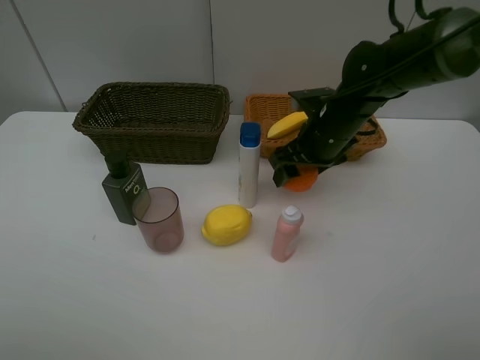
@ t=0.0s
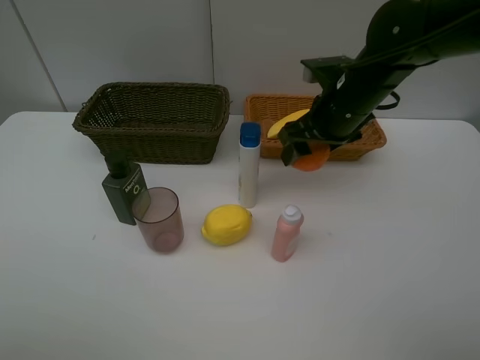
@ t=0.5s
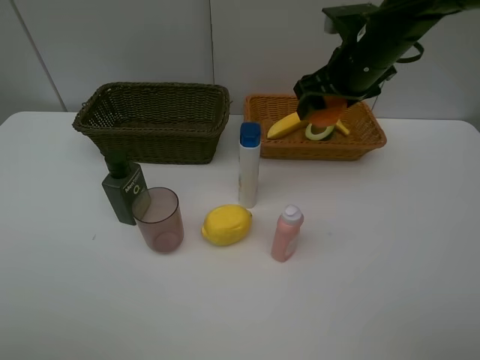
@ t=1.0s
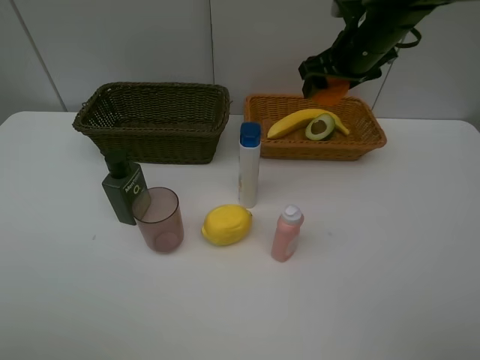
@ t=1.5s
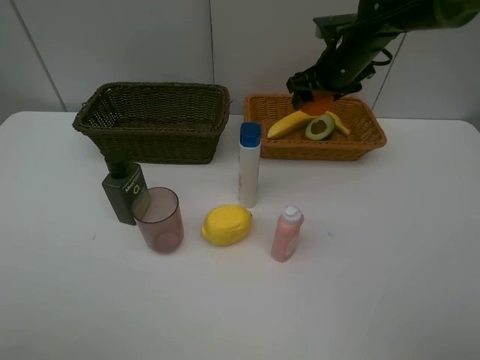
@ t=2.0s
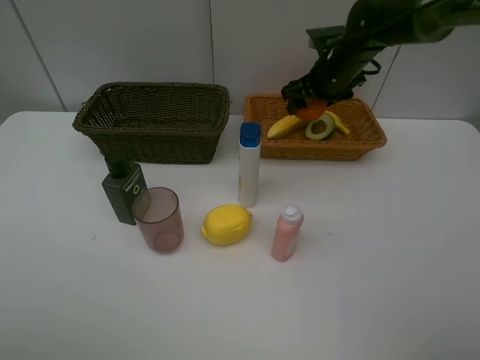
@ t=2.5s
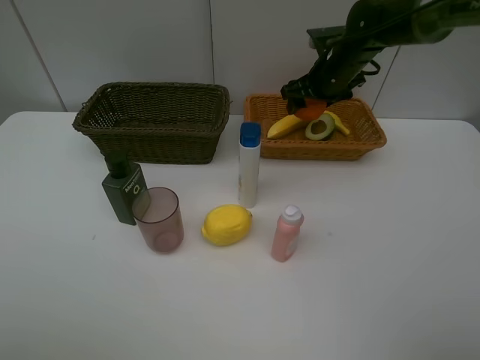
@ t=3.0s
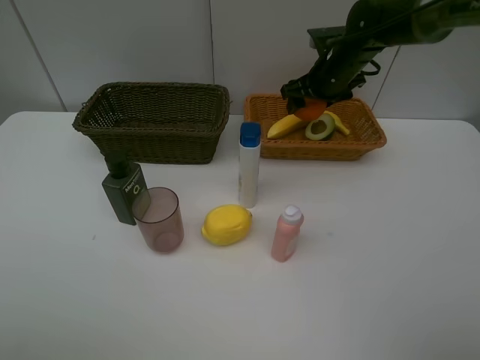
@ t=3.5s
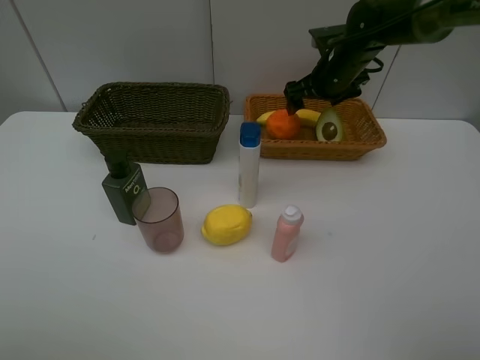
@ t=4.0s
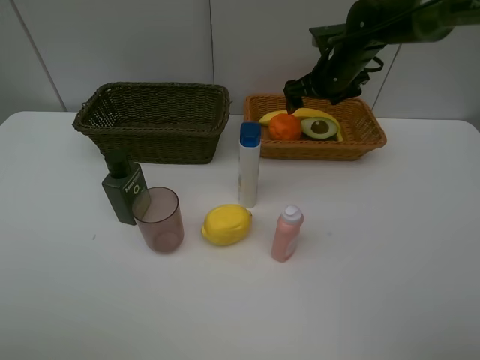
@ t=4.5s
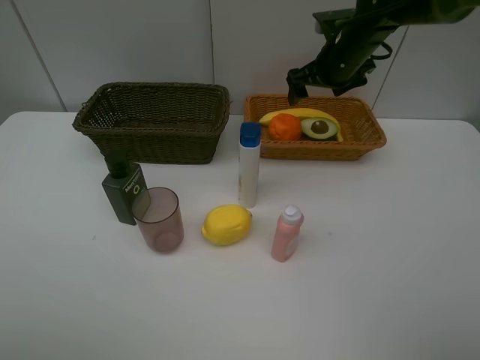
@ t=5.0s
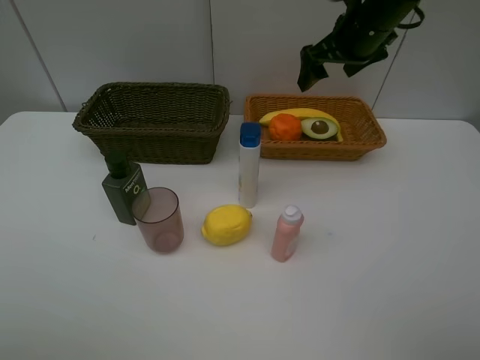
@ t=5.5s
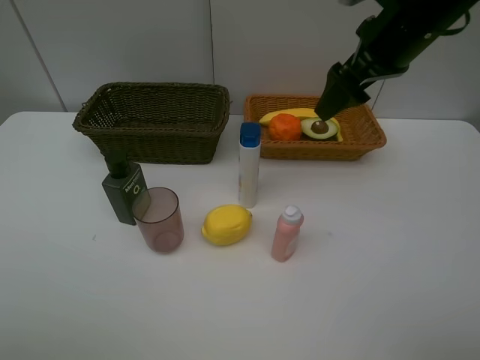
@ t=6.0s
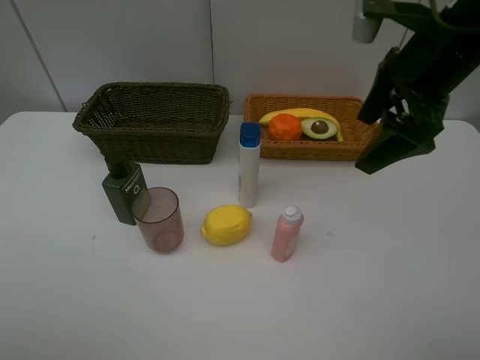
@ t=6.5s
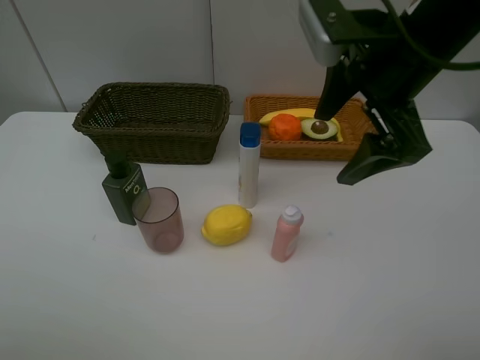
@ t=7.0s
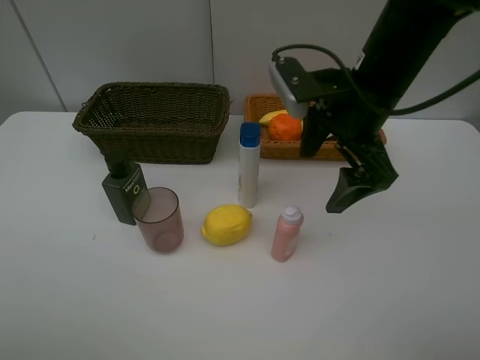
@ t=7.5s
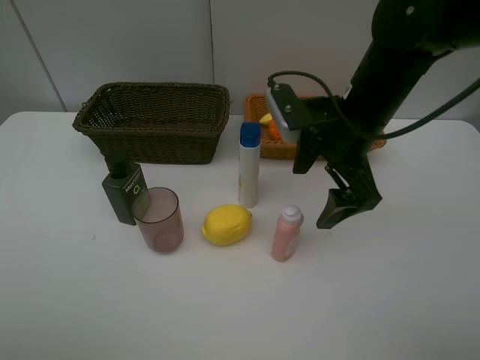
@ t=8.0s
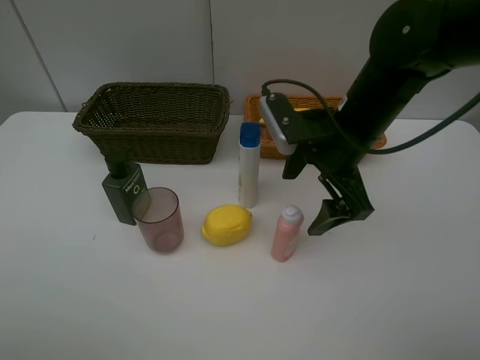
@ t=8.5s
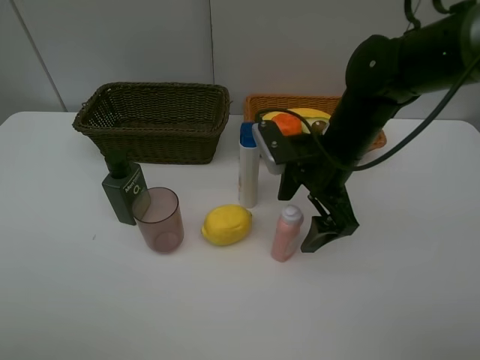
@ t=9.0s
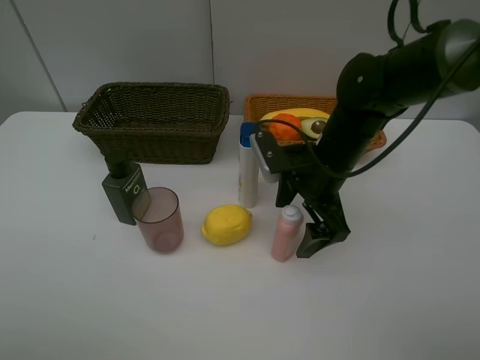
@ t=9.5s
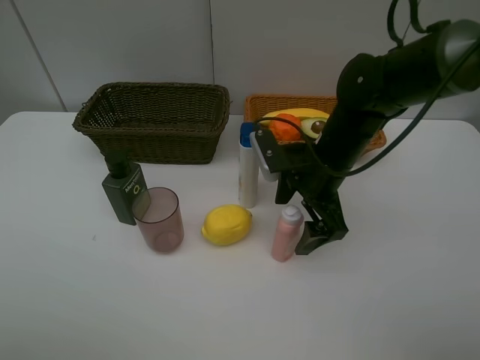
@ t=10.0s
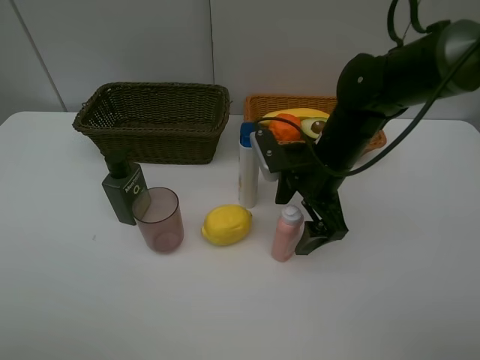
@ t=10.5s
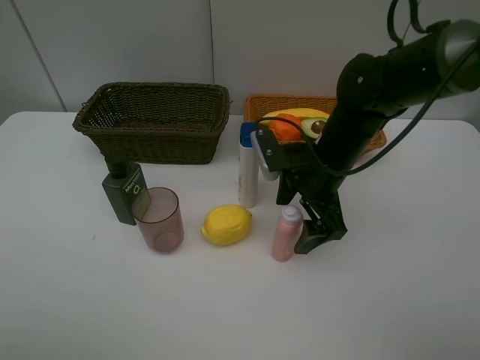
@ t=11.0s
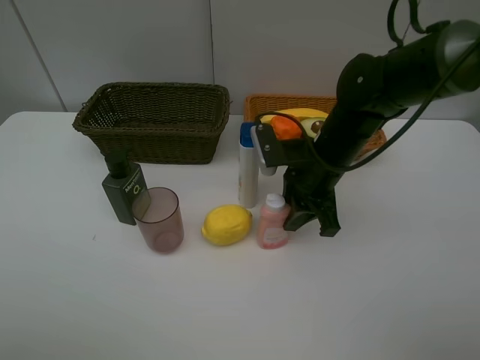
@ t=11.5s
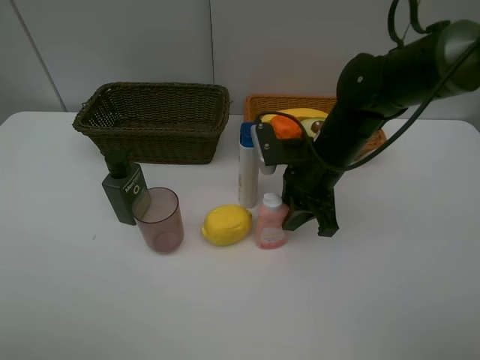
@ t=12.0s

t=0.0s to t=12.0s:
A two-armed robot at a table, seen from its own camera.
Task of the whole recording: Place multiple objects separately in different baskets.
Step, t=0.0s to t=4.0s: Place the orange in the light basket with right gripper.
t=0.0s to t=2.0s: The right gripper goes approximately 10 cm forward.
t=2.0s to t=4.0s: The right gripper opens up.
t=4.0s to t=6.0s: The right gripper travels backward and upward by approximately 20 cm.
t=6.0s to t=8.0s: The right gripper shifts approximately 10 cm downward and to the left.
t=8.0s to t=10.0s: The right gripper travels downward by roughly 5 cm.
t=10.0s to t=12.0s: The right gripper closes up.

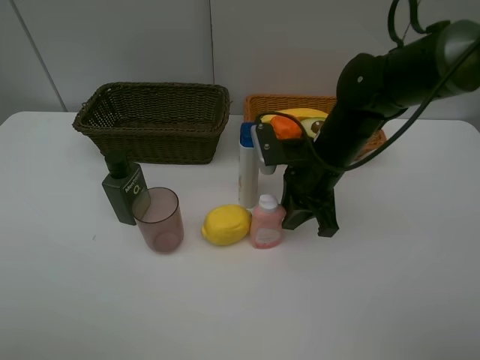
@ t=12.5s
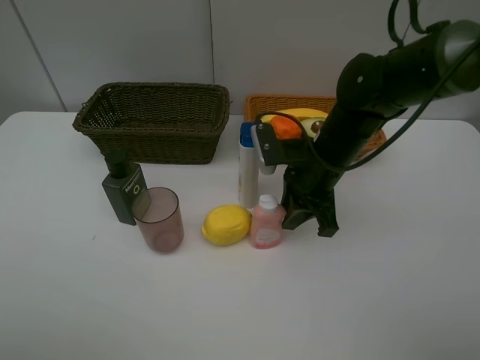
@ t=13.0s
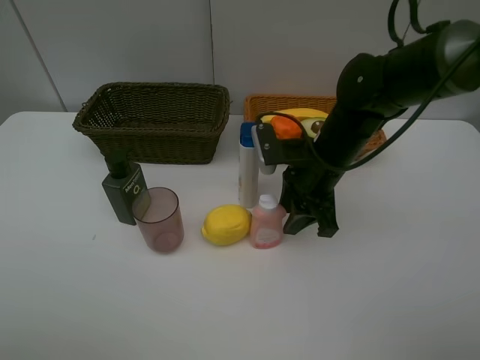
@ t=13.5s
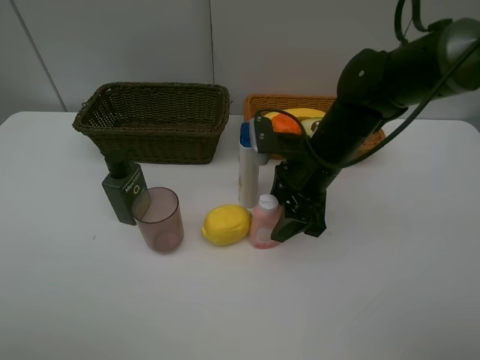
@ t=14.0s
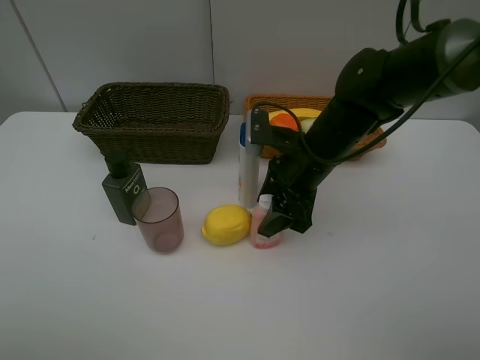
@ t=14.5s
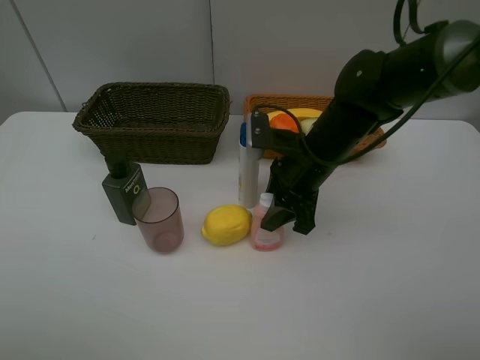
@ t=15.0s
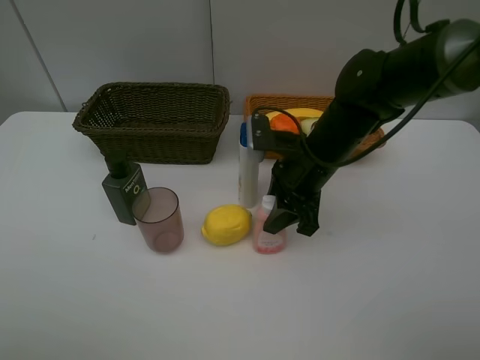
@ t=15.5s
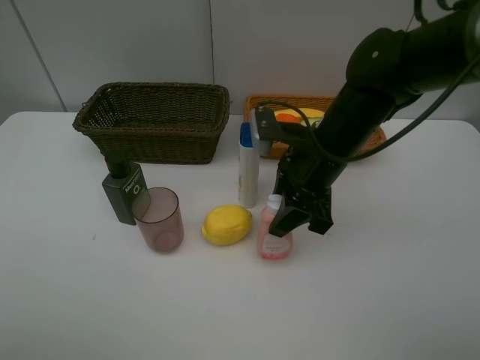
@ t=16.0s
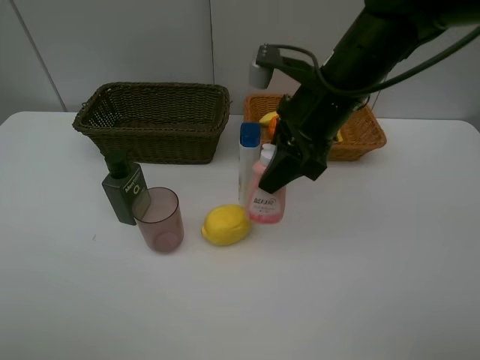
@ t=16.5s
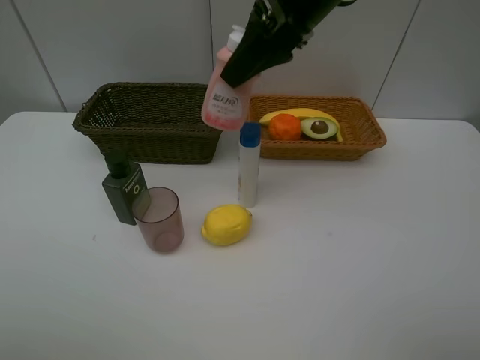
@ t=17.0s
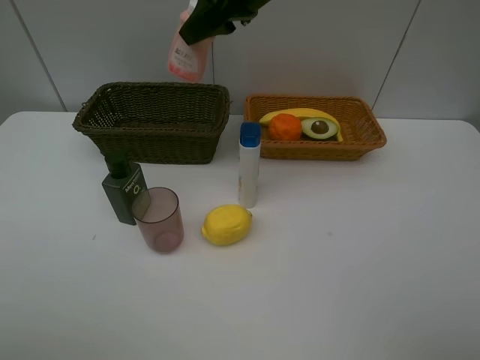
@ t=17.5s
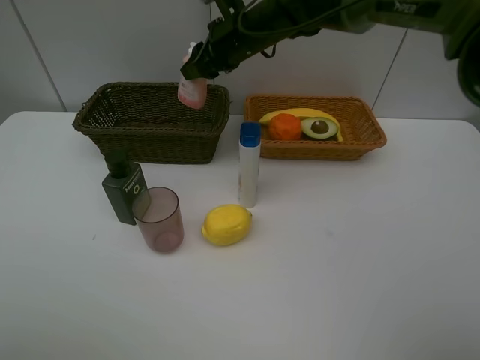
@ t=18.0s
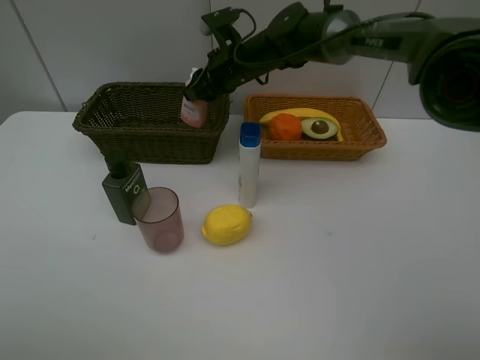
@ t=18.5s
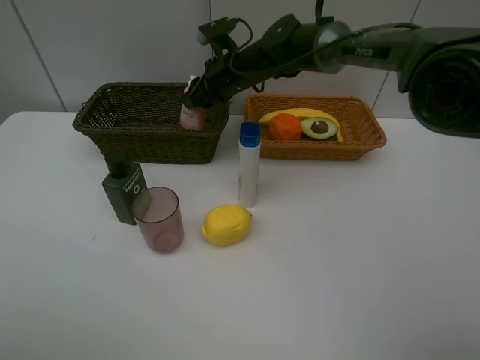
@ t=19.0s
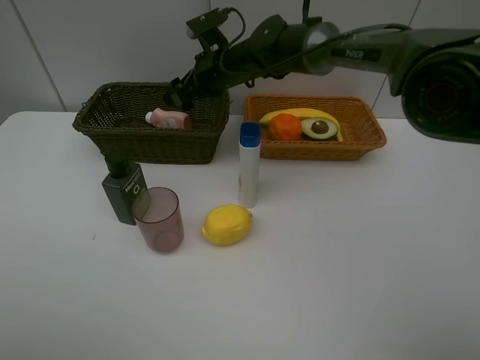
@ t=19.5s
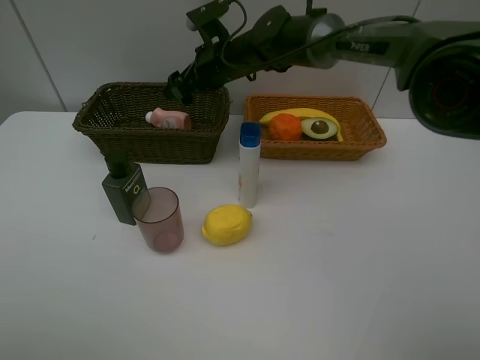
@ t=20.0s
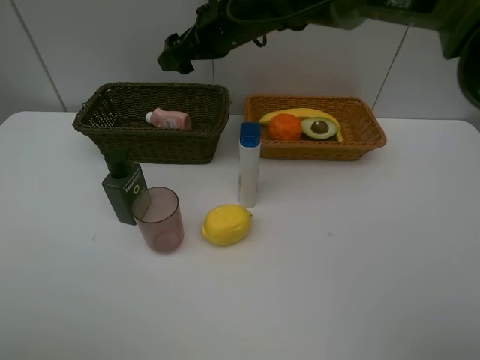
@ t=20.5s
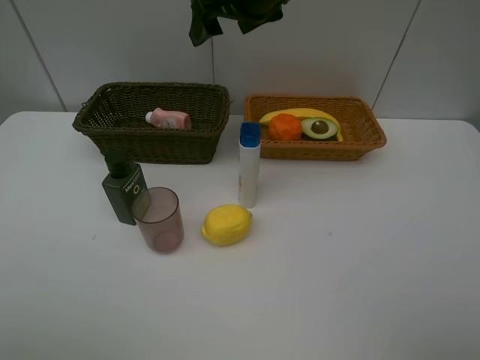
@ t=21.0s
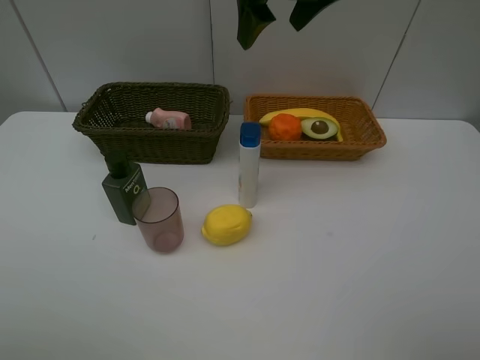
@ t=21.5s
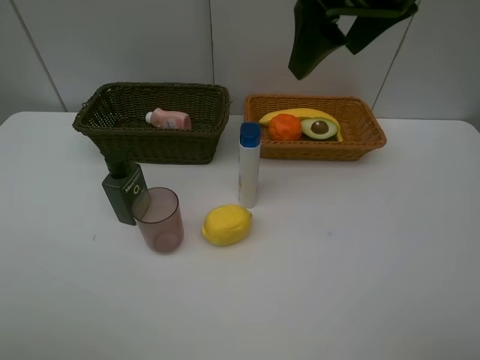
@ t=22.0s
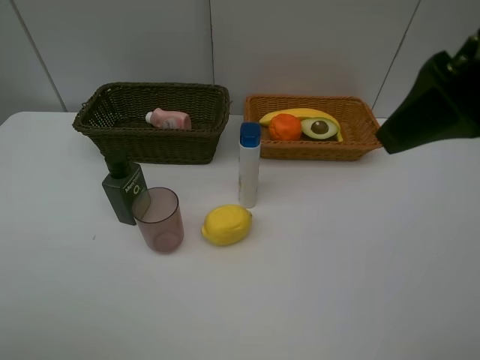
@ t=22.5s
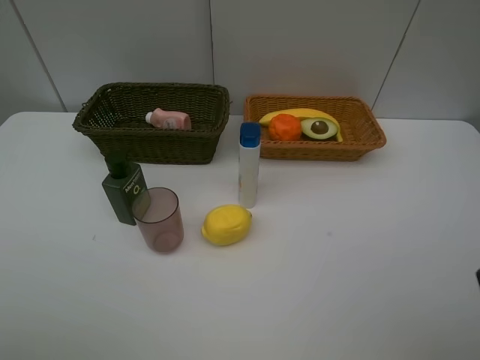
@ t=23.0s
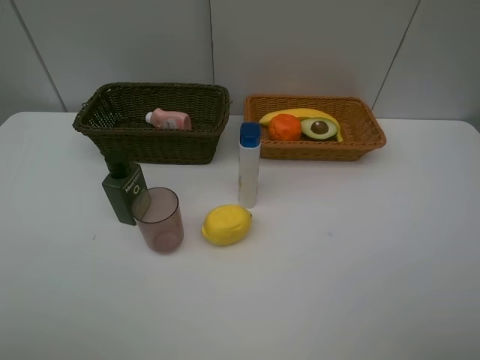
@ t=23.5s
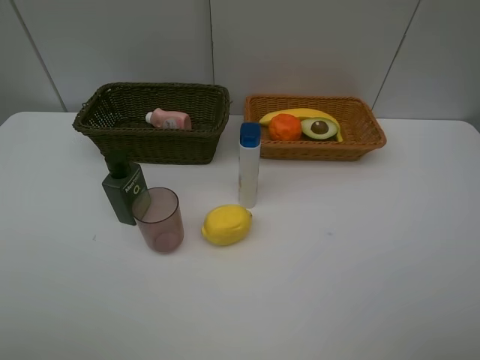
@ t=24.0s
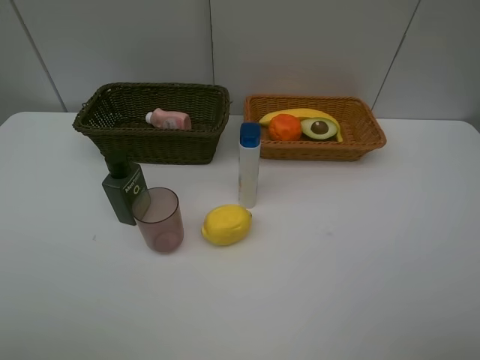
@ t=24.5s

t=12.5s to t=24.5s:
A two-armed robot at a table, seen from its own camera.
Task of the whole recording: Place multiple objects separately in different baskets.
Step, t=12.5s to t=16.0s: Pick up the laundry detergent with right gripper.
Step, t=16.5s to t=19.5s: Place the laundry detergent in the dark basket with right gripper.
t=12.5s to t=14.5s: The right gripper opens its fingers.
t=14.5s to t=16.5s: The right gripper moves upward, roughly 10 cm, and closes up.
t=16.5s to t=18.5s: The right gripper shifts roughly 20 cm forward and to the left.
t=18.5s to t=20.5s: The right gripper moves upward, some 5 cm, and opens its fingers.
t=20.5s to t=22.5s: The right gripper goes approximately 35 cm backward and to the right.
t=22.5s to t=24.5s: The right gripper shifts approximately 20 cm backward, to the right and downward.

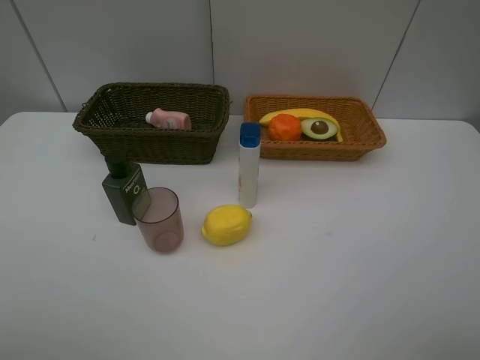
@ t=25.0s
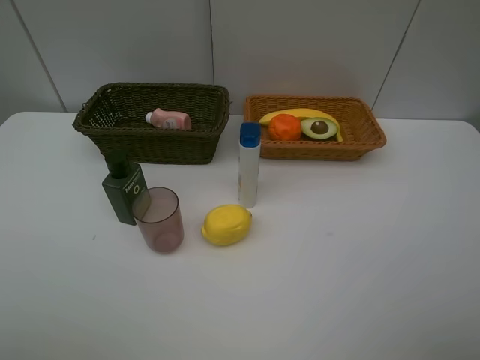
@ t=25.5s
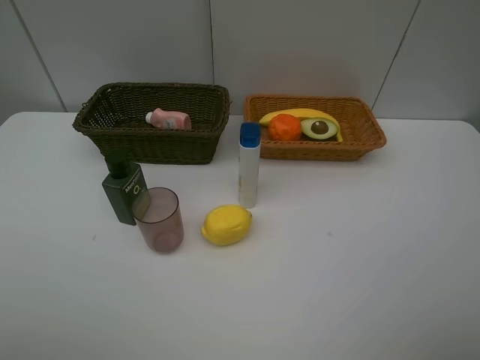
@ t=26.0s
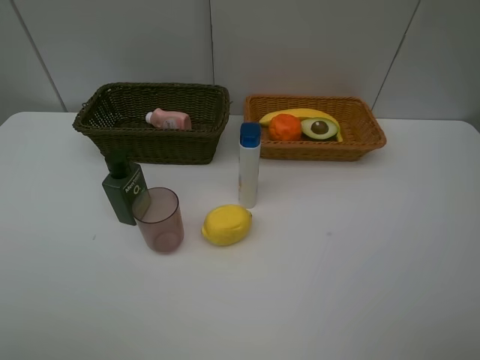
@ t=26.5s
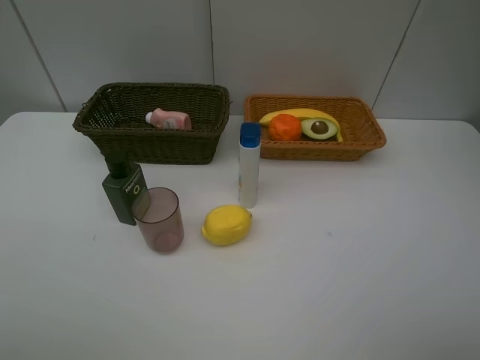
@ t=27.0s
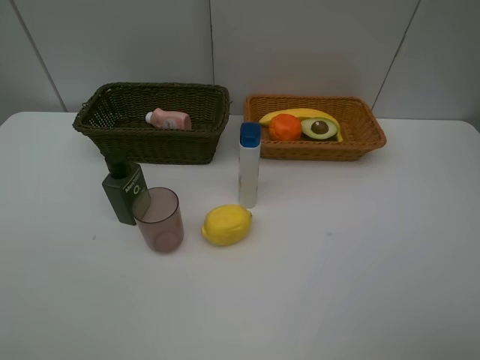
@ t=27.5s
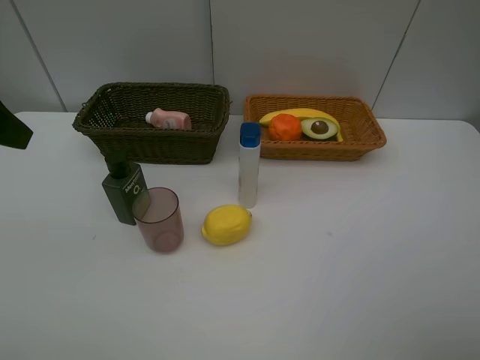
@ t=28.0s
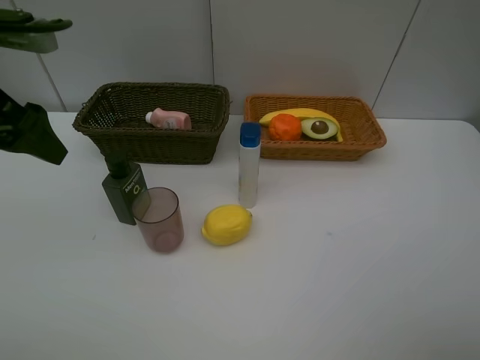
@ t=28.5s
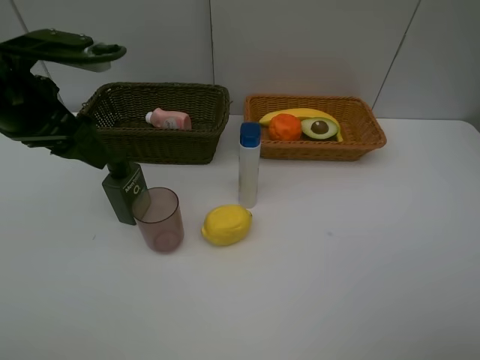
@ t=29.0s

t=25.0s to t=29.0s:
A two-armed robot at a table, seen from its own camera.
Task of the whole recording: Place multiple objects separately in different baskets.
t=27.0s to t=29.0s: The left gripper travels forward by approximately 25 cm.
